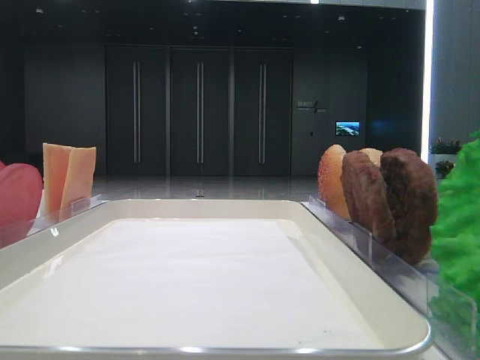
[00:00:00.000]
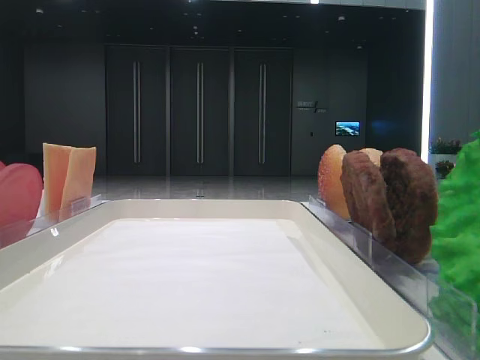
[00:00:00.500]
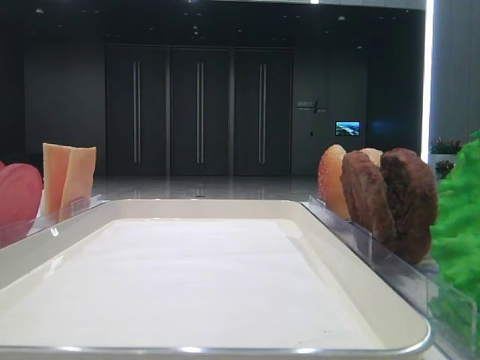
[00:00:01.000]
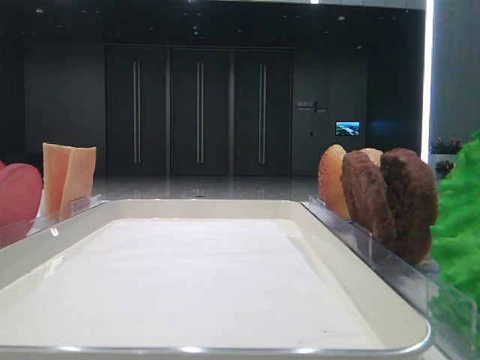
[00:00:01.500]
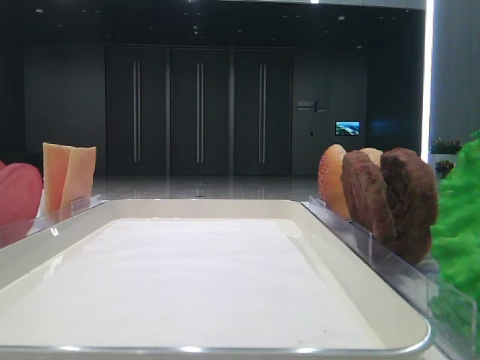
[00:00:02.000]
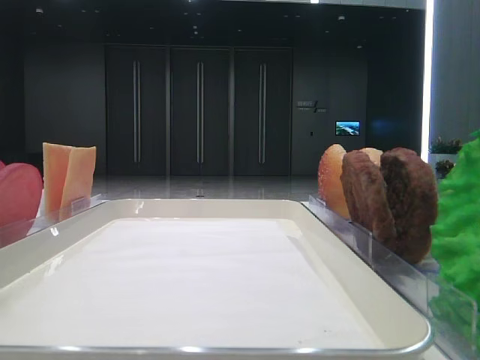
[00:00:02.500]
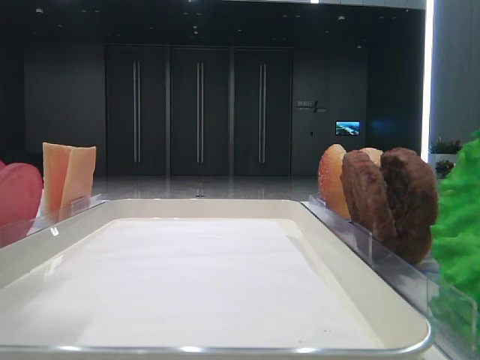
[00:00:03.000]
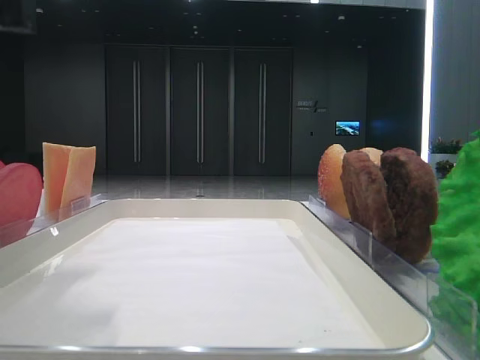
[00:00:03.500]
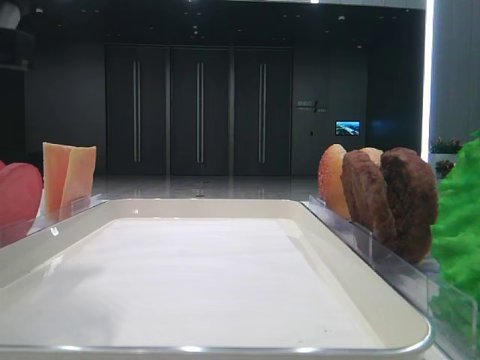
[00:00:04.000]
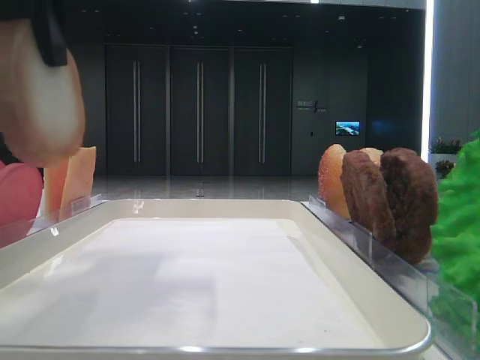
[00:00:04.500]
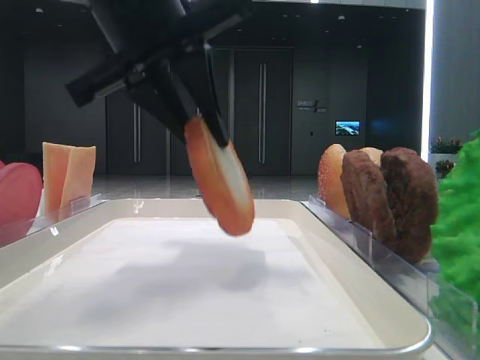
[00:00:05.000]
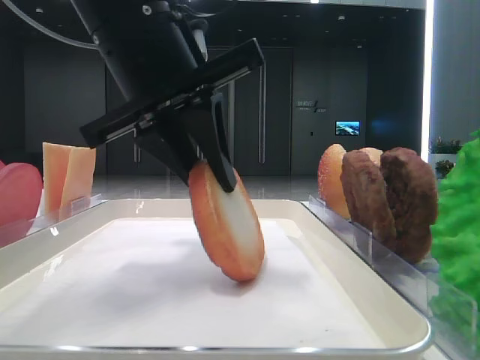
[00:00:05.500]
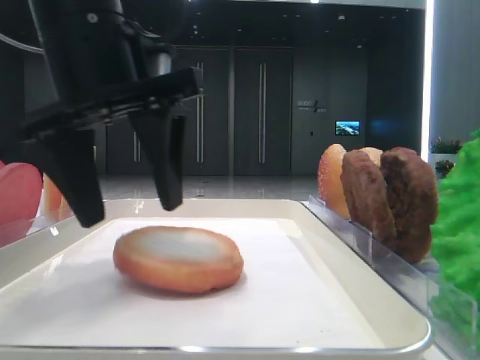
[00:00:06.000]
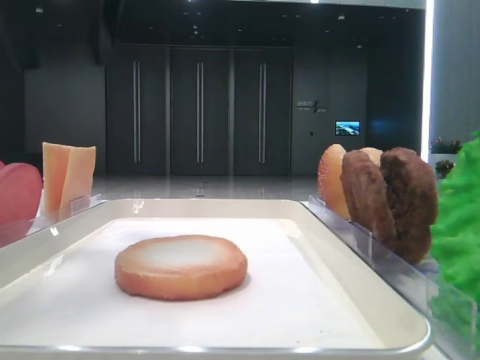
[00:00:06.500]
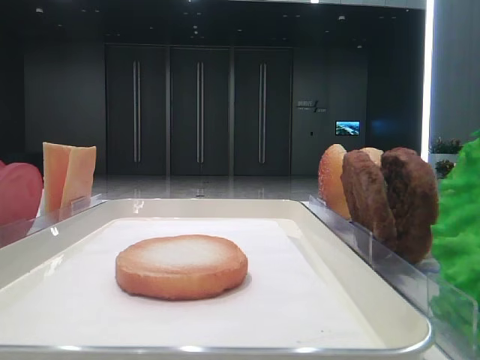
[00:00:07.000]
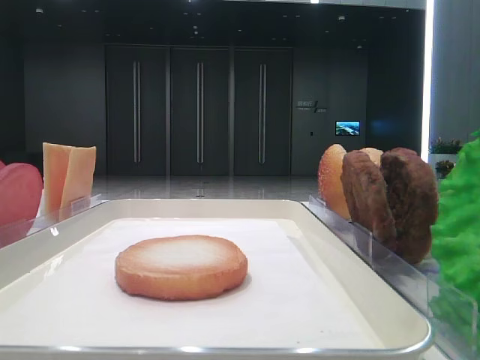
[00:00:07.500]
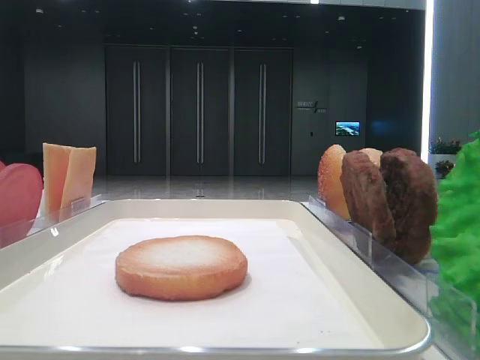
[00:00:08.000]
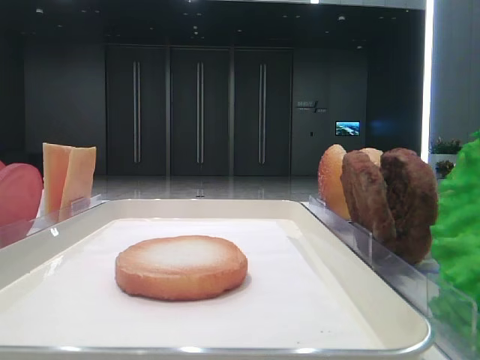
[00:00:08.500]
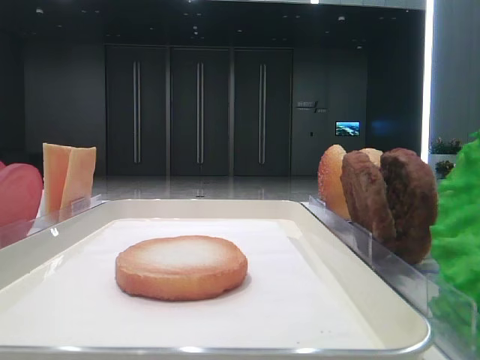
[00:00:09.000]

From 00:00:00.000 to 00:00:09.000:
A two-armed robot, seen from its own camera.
Step, from 00:00:00.000 to 00:00:04.000: Pick up the bottom bread with the left hand.
Step, from 00:00:04.500 to 00:00:06.000: Place the bread on the tray with the left hand.
From 00:00:02.000 to 00:00:04.500: The left gripper is displaced to the right and forward by some 20 cm, and closes its fingers.
From 00:00:04.500 to 00:00:07.000: The left gripper moves to the left and forward, approximately 20 cm, and opens.

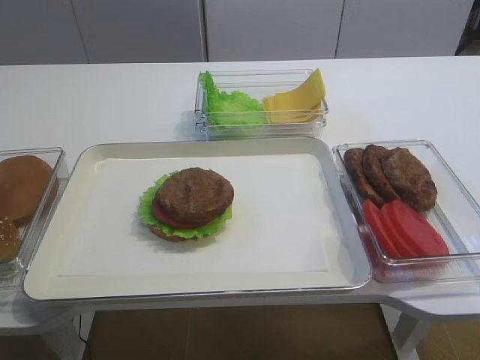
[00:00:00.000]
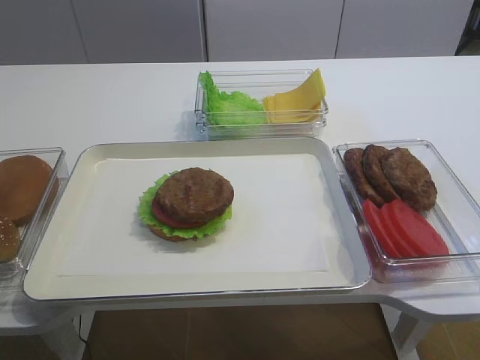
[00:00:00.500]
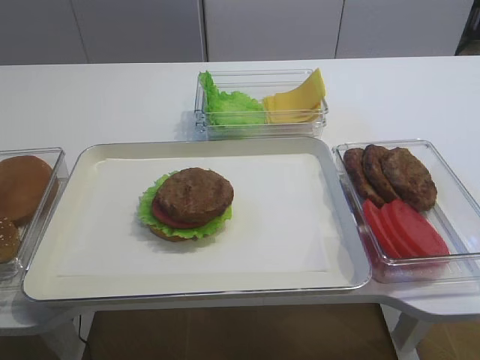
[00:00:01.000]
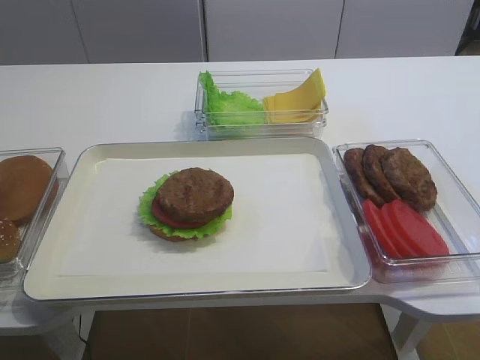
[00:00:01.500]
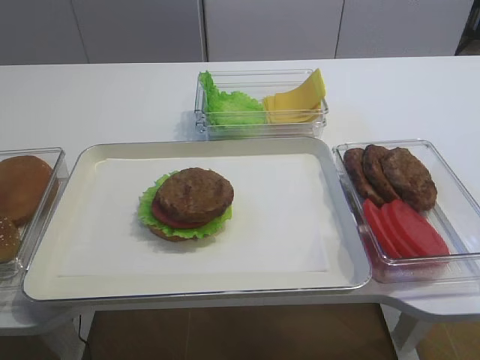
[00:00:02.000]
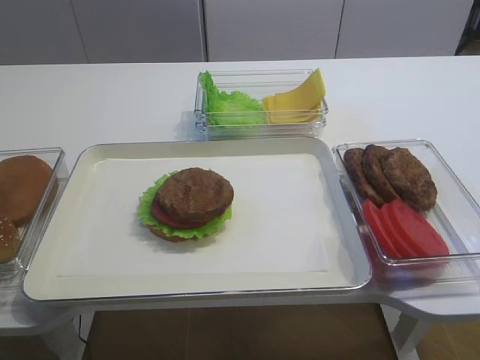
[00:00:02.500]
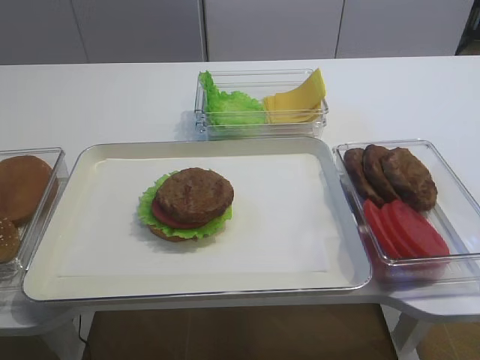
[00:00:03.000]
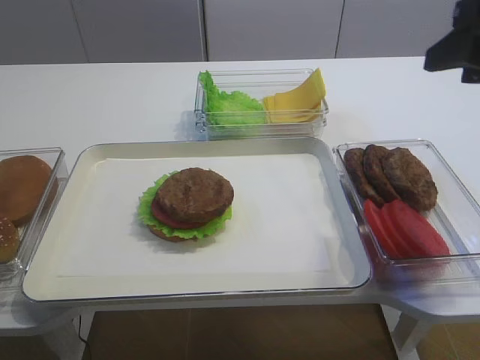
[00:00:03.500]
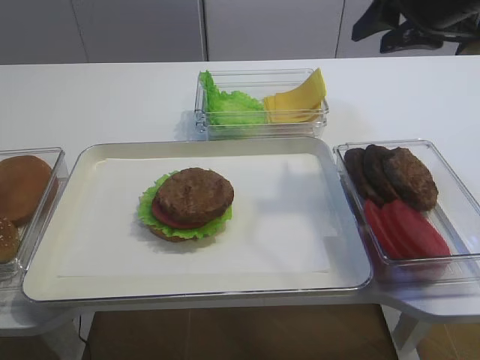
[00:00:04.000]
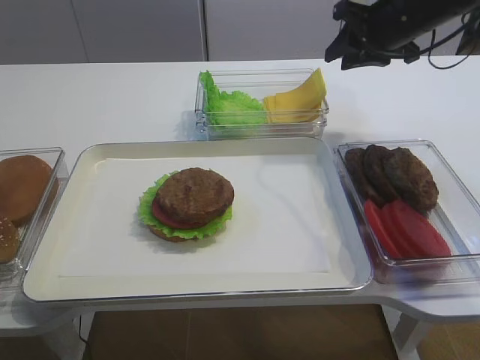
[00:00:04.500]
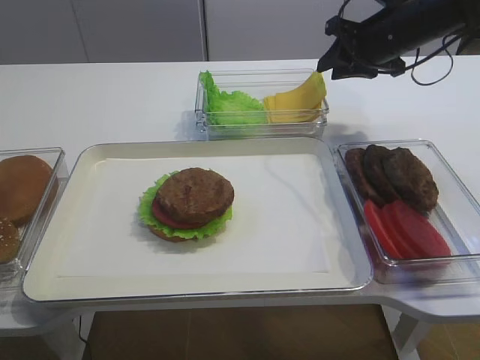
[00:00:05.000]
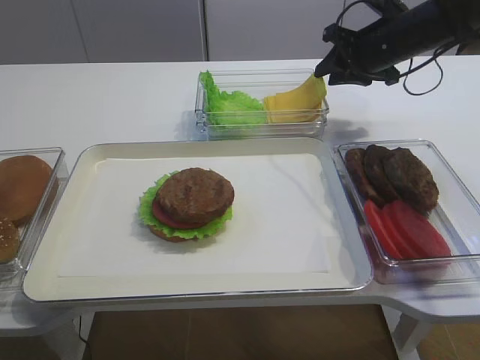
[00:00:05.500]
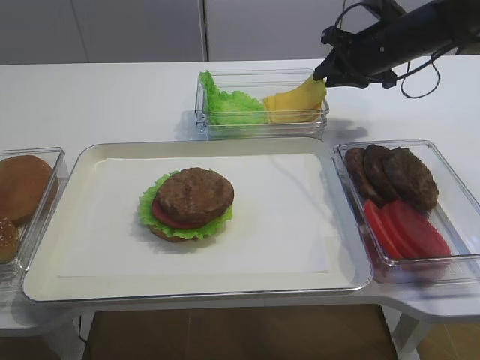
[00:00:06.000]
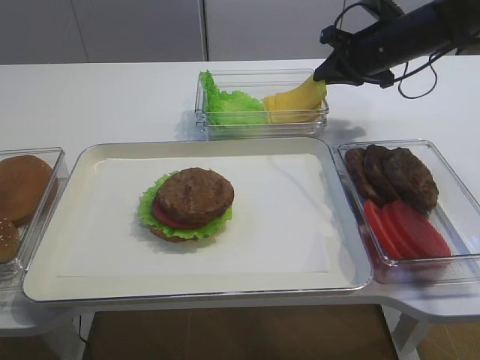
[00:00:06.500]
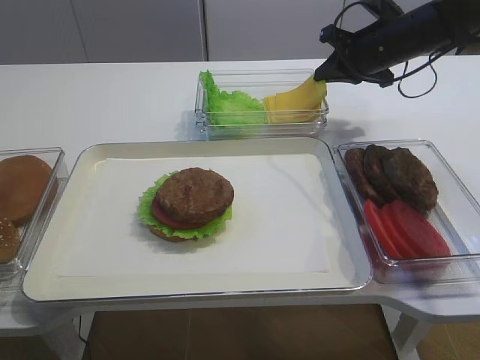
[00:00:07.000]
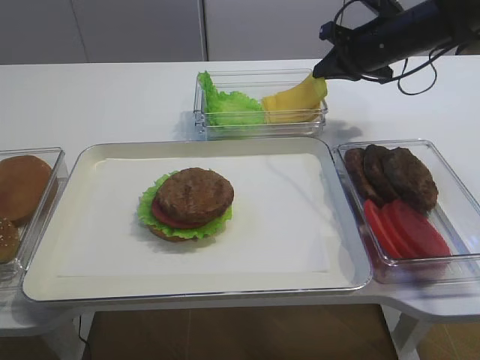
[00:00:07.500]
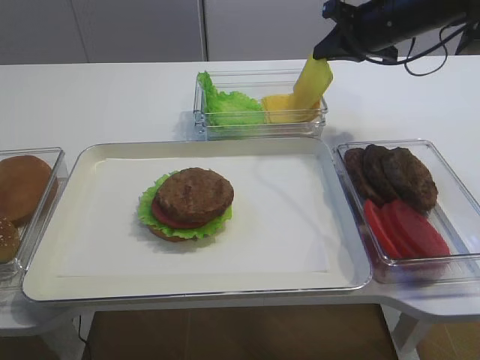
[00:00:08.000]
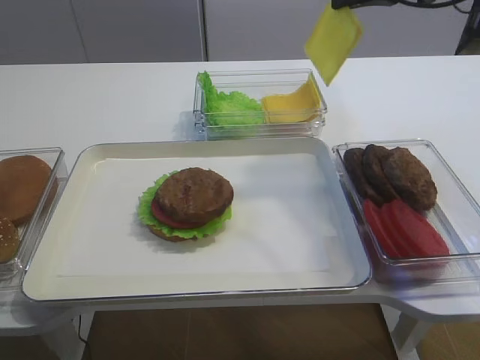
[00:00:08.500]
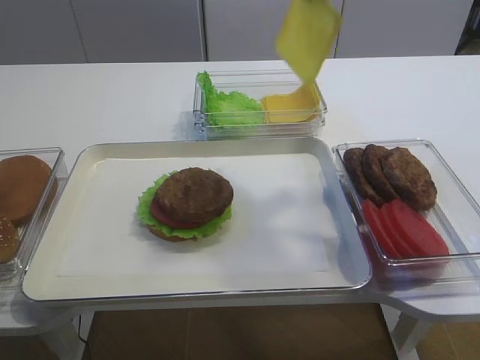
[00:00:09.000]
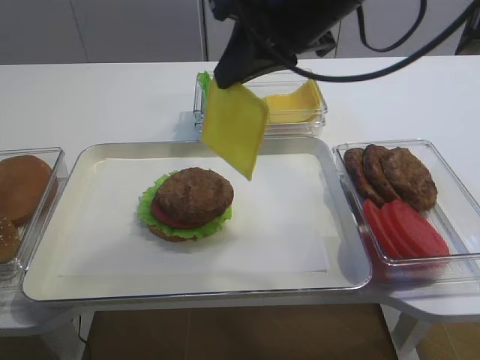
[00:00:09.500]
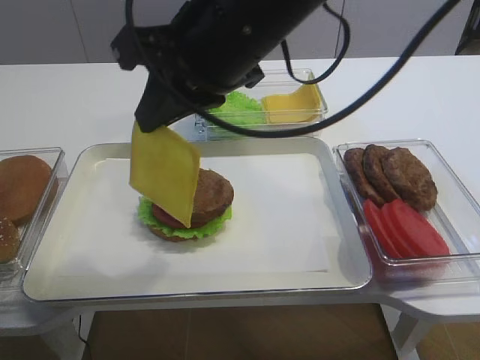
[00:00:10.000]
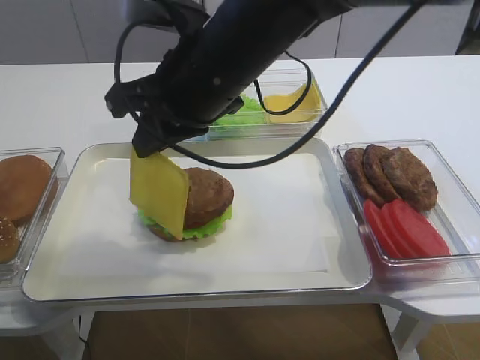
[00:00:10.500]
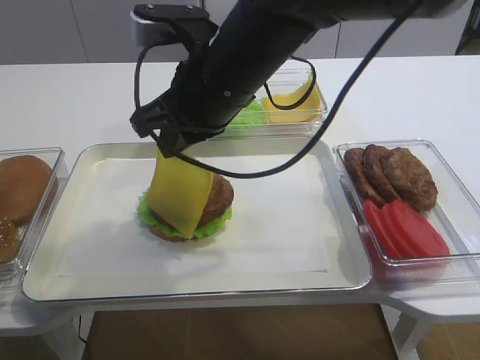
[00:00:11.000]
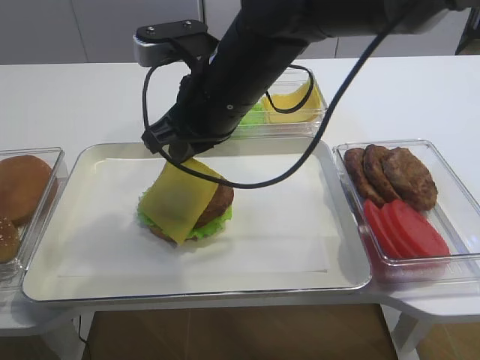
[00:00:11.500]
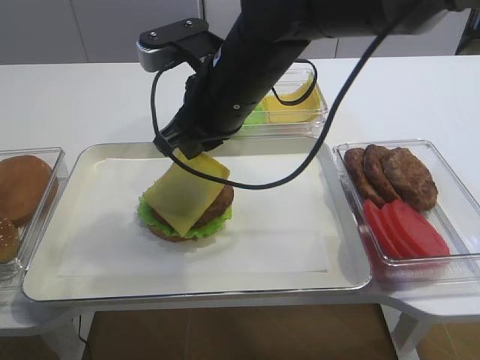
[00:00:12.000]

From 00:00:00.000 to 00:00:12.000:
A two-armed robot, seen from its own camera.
Step, from 00:00:00.000 to 00:00:08.500: Pick up the cheese slice with the right gripper.
From 00:00:02.000 to 00:00:04.000: The right gripper heads forward, covering approximately 35 cm.
From 00:00:04.000 to 00:00:06.000: The right gripper shifts approximately 15 cm forward and downward.
From 00:00:06.000 to 00:00:08.000: The right gripper closes.
From 00:00:08.000 to 00:00:10.000: The right gripper is displaced backward and to the left by approximately 30 cm.
From 00:00:10.000 to 00:00:12.000: The right gripper is displaced downward by about 10 cm.

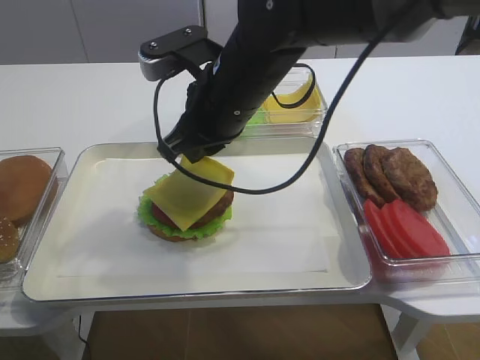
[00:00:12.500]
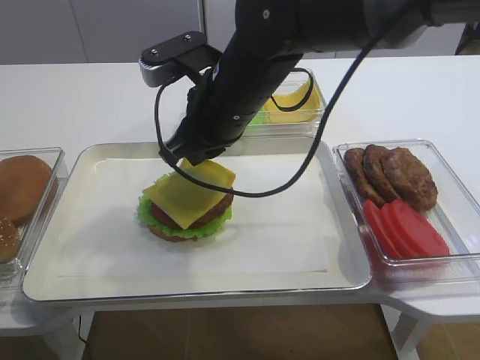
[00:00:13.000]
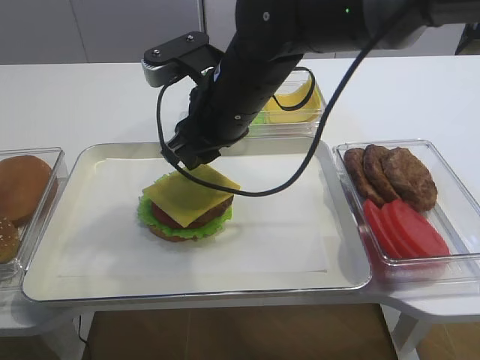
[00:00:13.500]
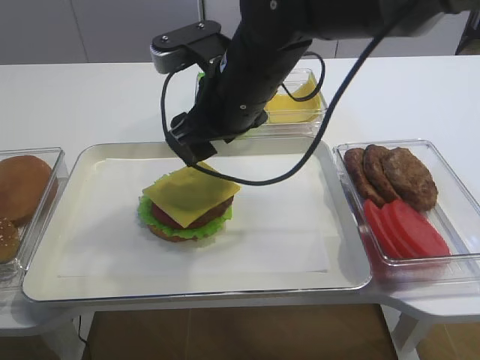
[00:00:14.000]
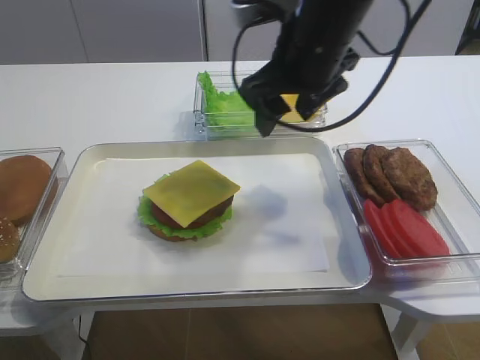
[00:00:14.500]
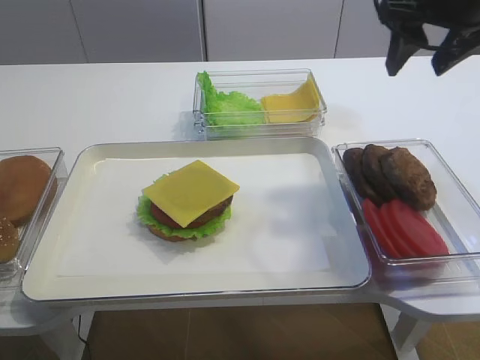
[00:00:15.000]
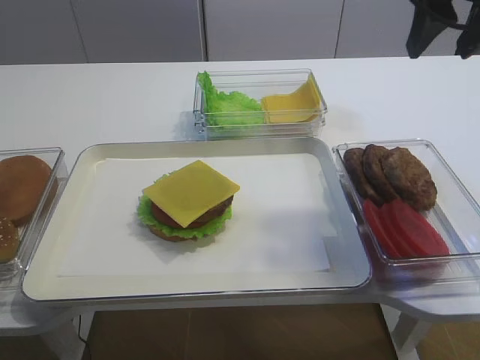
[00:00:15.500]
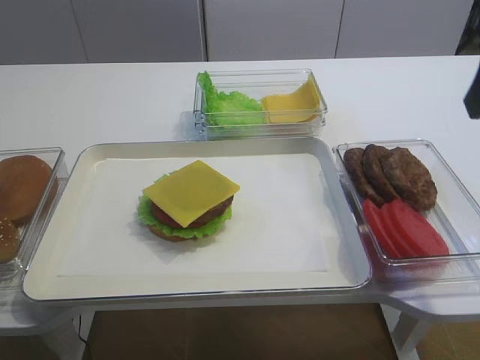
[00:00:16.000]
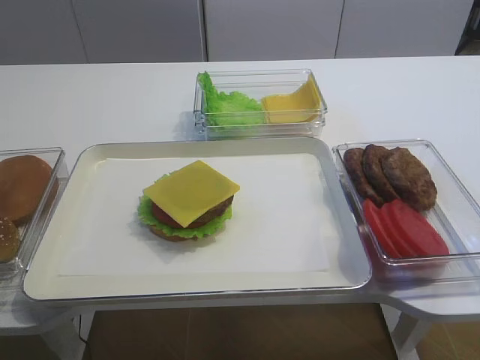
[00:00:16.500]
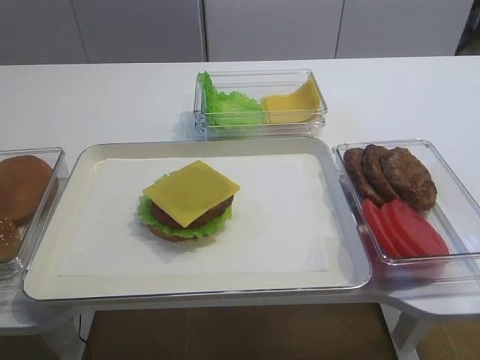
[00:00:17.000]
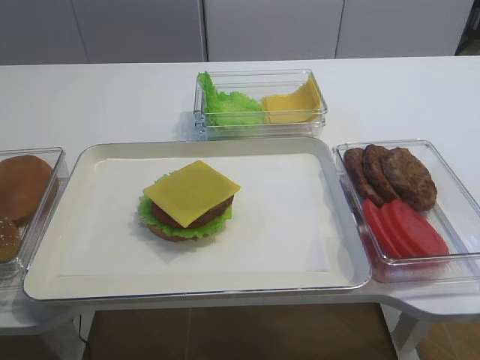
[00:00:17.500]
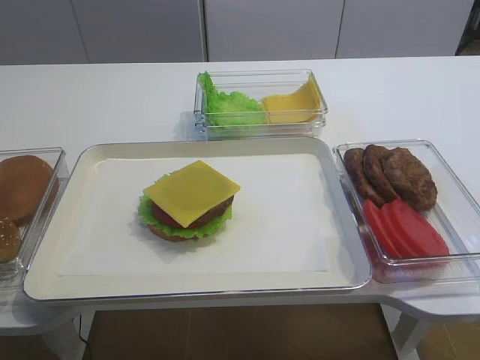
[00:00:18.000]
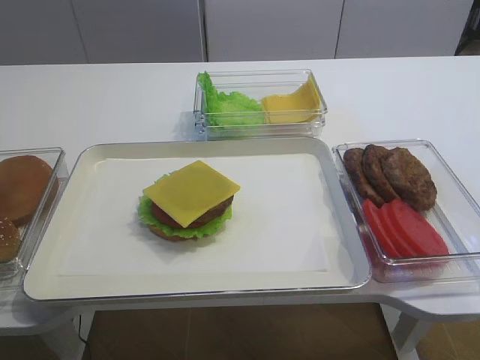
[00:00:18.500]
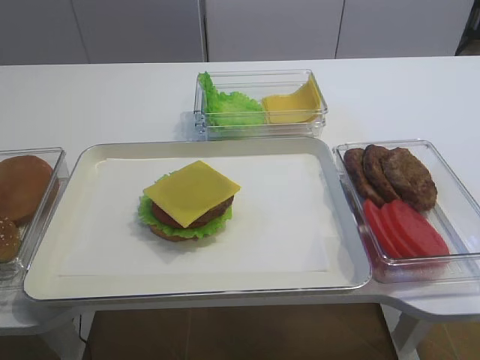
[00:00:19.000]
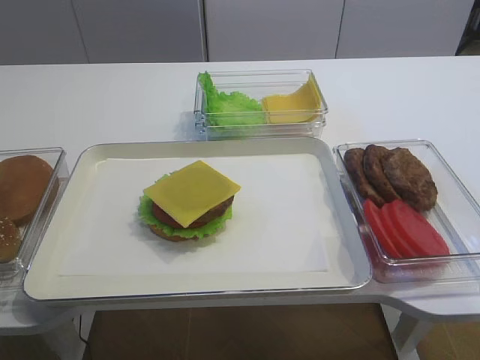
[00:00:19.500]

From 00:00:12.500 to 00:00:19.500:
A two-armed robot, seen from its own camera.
From 00:00:12.500 to 00:00:14.500: The right gripper shifts roughly 10 cm to the right, and opens up.
From 00:00:14.500 to 00:00:16.000: The right gripper moves to the right, backward and upward, some 20 cm.
From 00:00:16.000 to 00:00:17.500: The right gripper goes some 25 cm backward.
